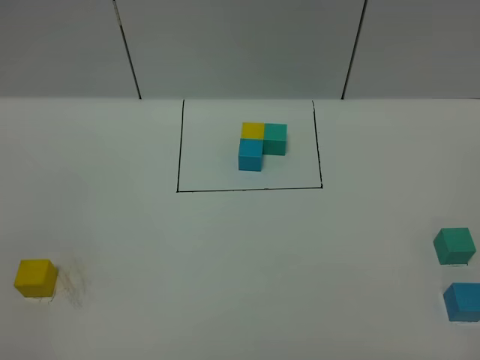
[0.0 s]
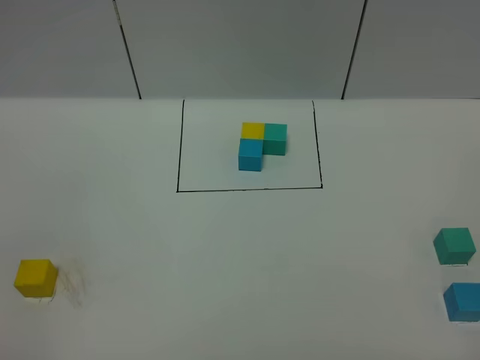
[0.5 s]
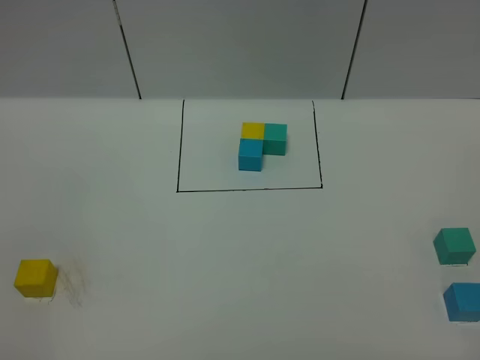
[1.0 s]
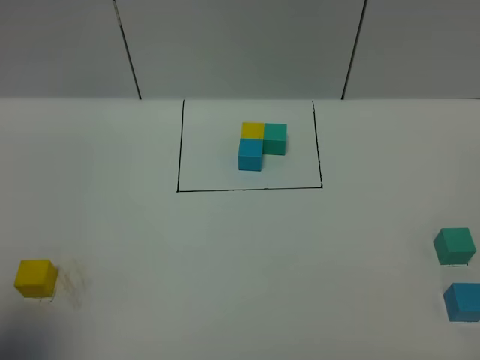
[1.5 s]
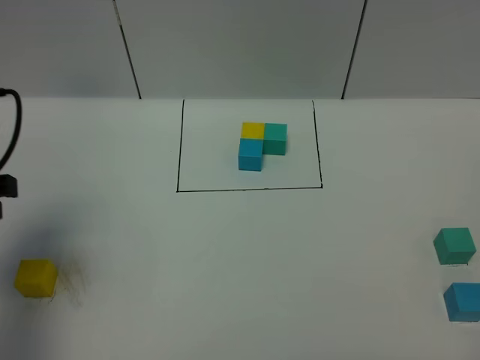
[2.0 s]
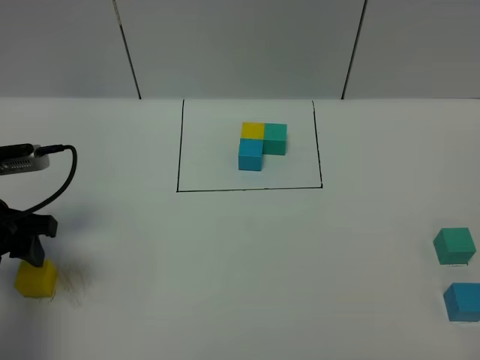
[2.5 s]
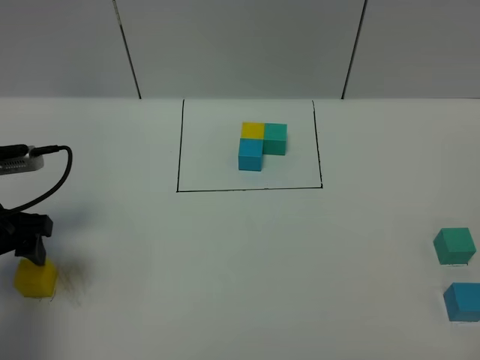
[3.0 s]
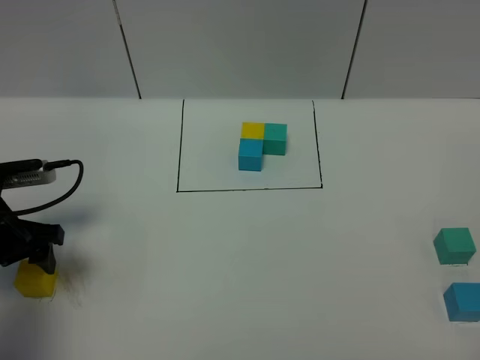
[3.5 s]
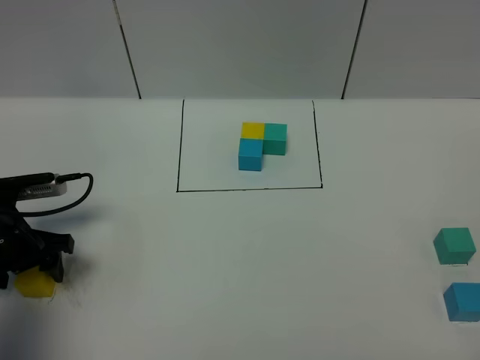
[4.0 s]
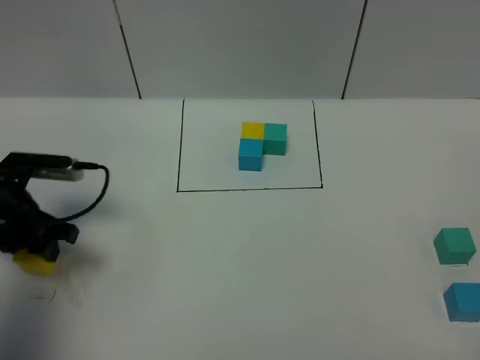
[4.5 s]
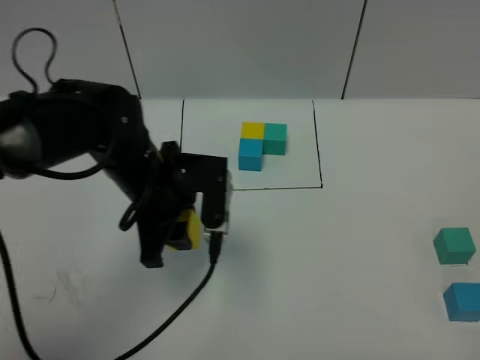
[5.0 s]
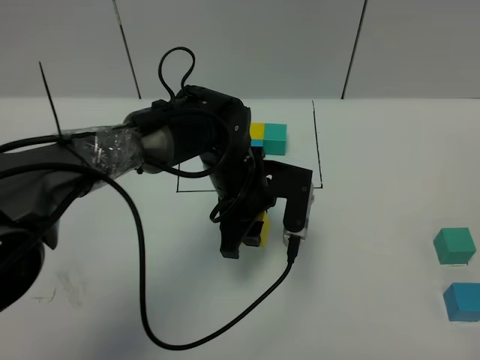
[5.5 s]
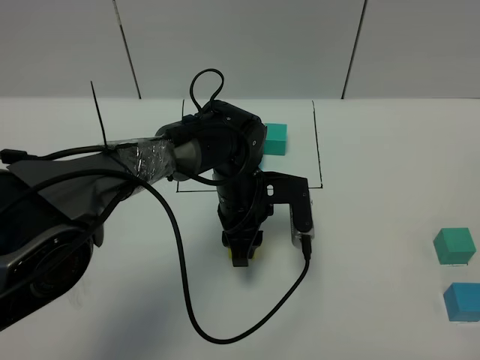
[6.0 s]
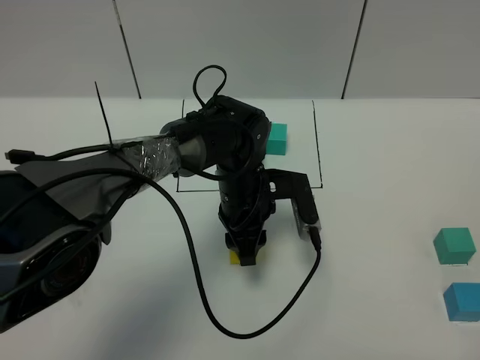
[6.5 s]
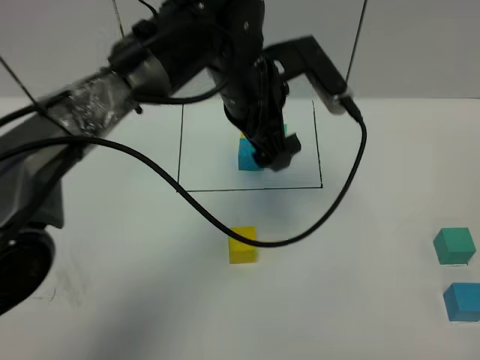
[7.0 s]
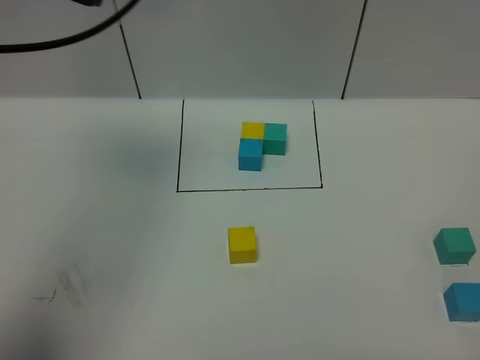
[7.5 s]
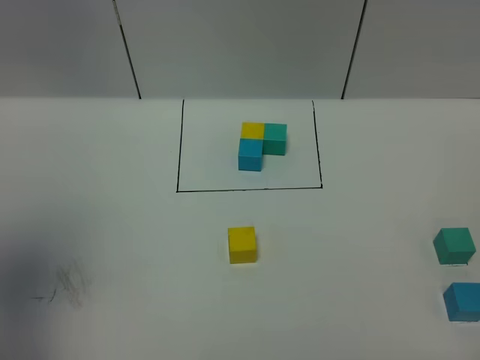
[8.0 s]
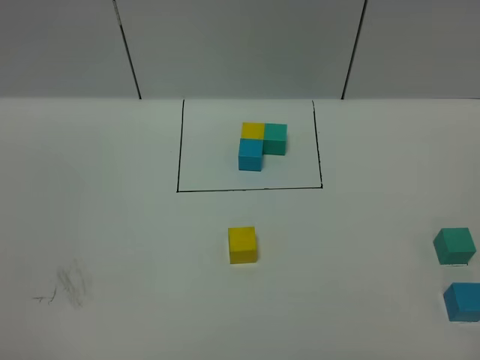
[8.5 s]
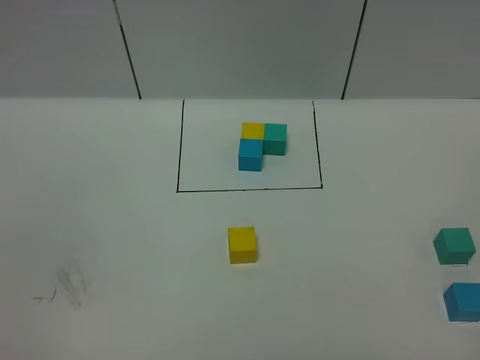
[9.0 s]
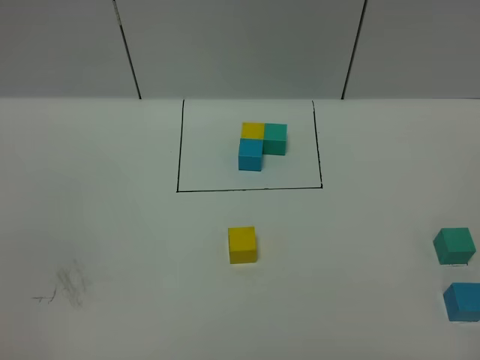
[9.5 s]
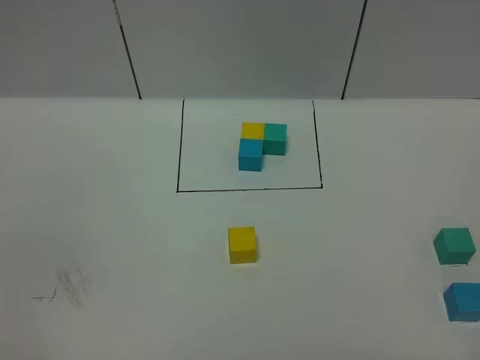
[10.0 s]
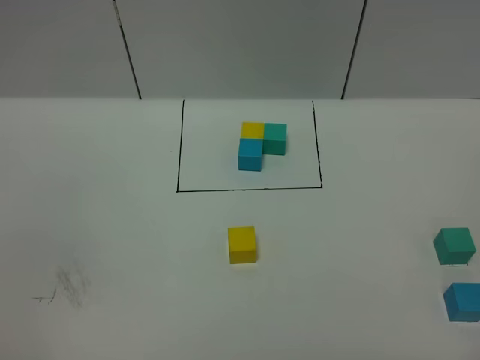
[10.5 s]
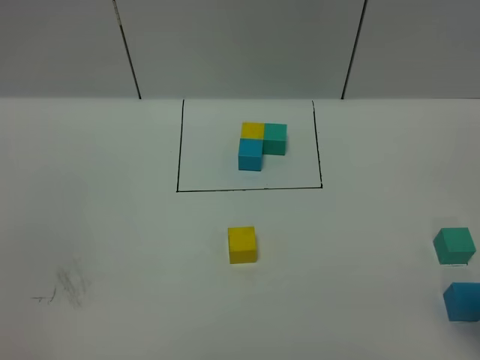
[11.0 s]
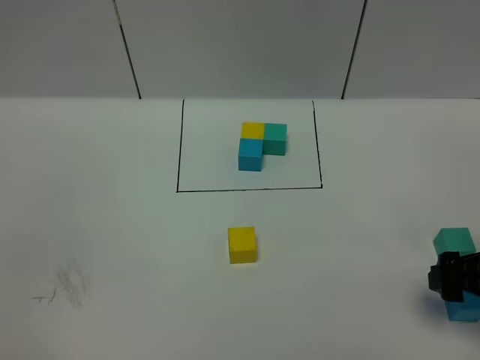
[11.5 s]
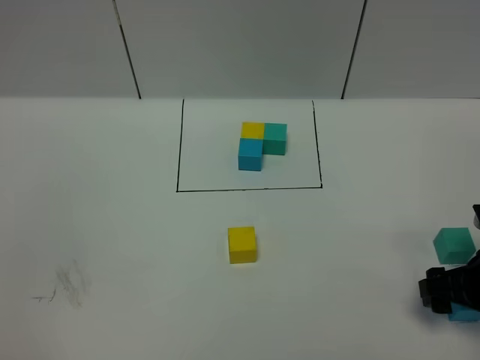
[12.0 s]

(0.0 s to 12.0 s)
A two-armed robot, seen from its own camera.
Task of the whole recording: According to the building block template in front, assemble the scattered blocks together.
Step, 2.0 s - 6.5 s: Put the yellow cube in the center of the table.
0.0 s - 2.0 s: The left gripper moves forward, approximately 25 cm.
2.0 s - 4.0 s: The left gripper is displaced downward by approximately 15 cm, and opens its fingers.
4.0 s - 6.0 s: The left gripper goes approximately 30 cm to the right, and closes.
6.0 s - 8.0 s: The left gripper shifts roughly 50 cm upward, to the left and backward, and opens.
8.0 s - 10.0 s: The left gripper shifts about 25 cm backward and downward.
10.0 s - 12.0 s: The right gripper travels forward and downward by approximately 25 cm.

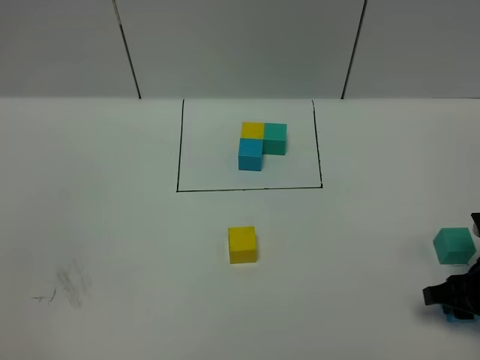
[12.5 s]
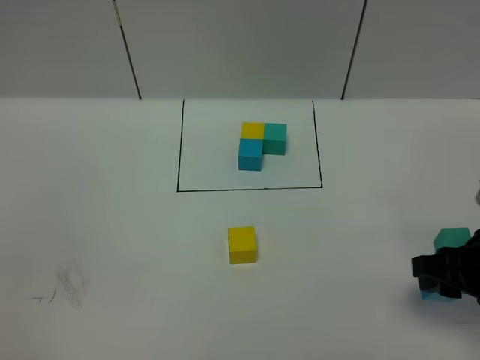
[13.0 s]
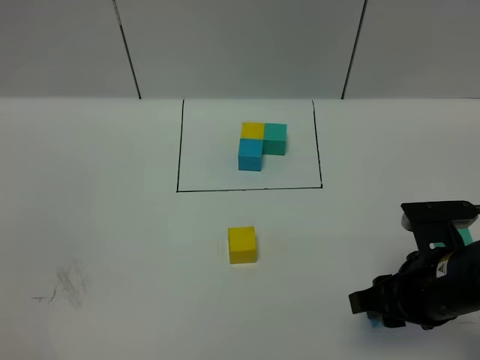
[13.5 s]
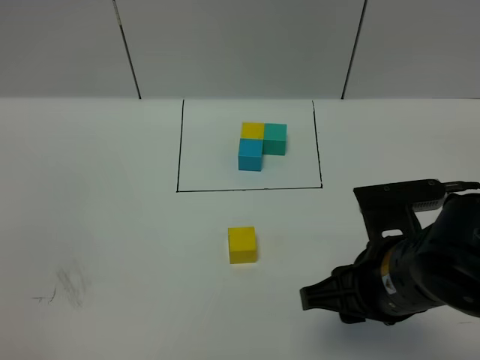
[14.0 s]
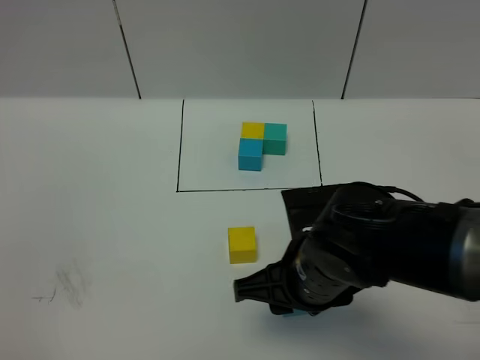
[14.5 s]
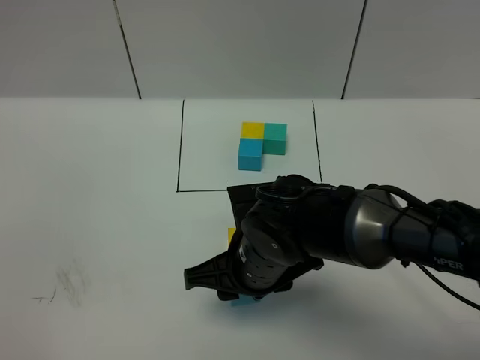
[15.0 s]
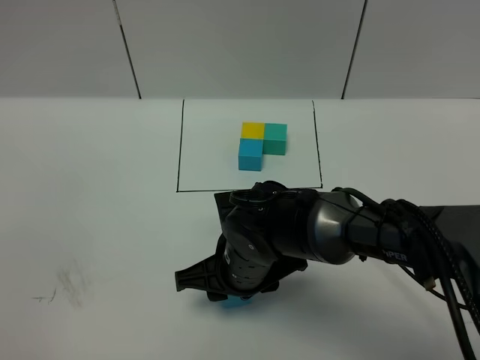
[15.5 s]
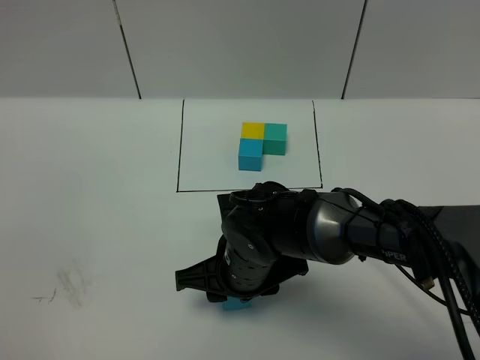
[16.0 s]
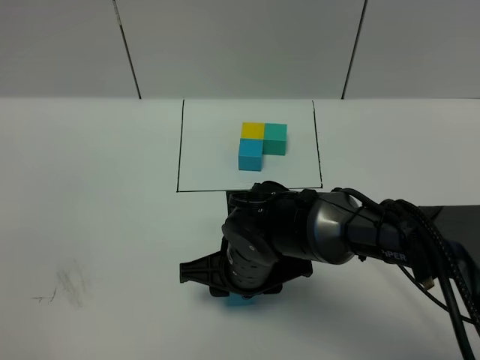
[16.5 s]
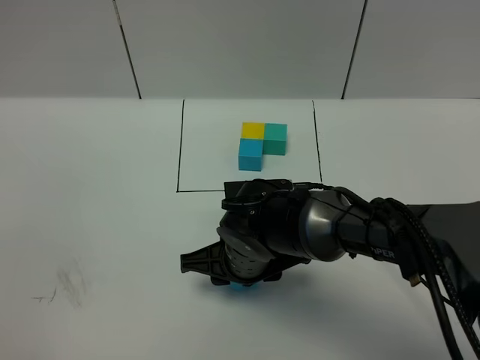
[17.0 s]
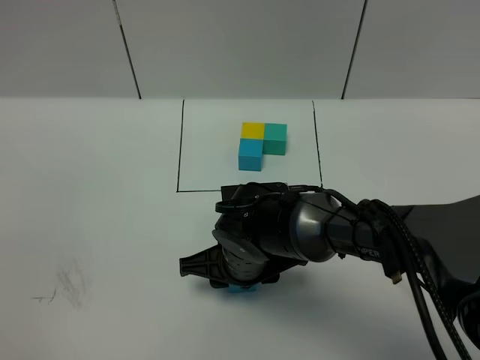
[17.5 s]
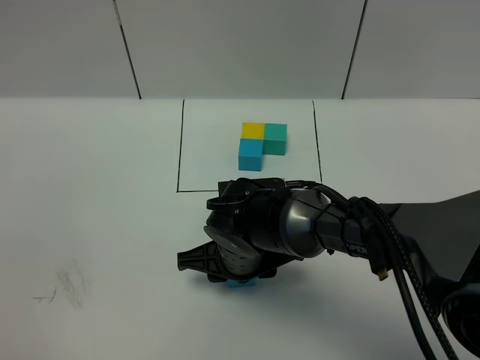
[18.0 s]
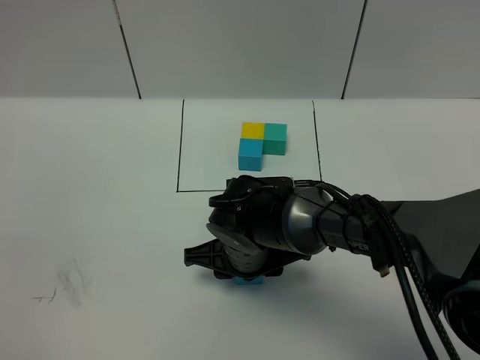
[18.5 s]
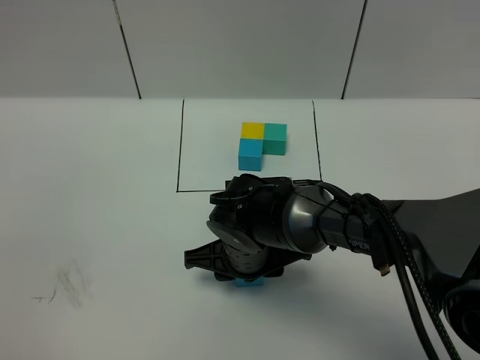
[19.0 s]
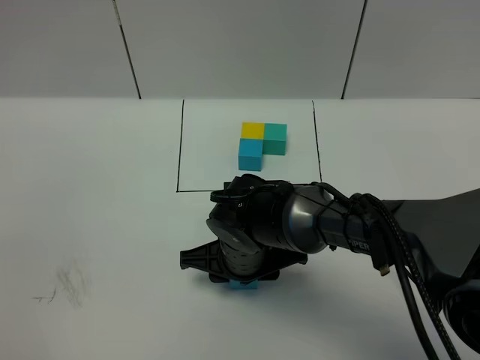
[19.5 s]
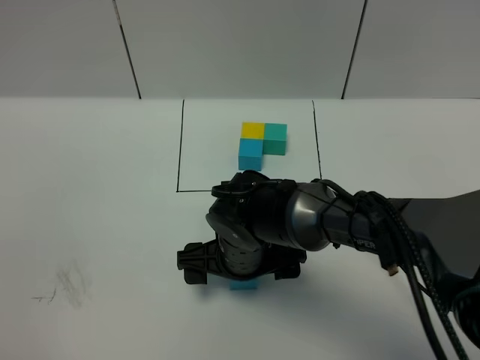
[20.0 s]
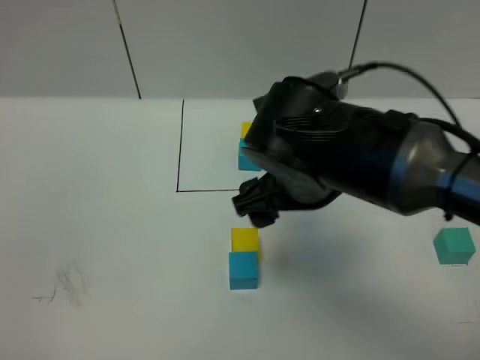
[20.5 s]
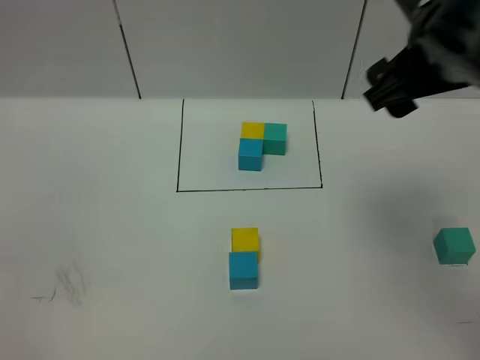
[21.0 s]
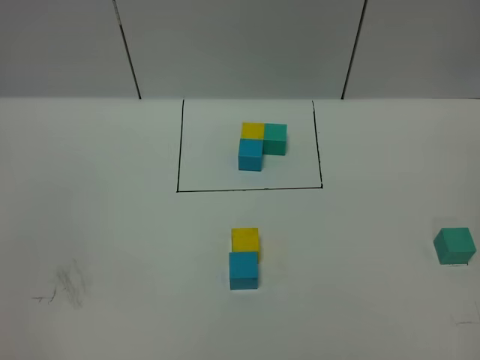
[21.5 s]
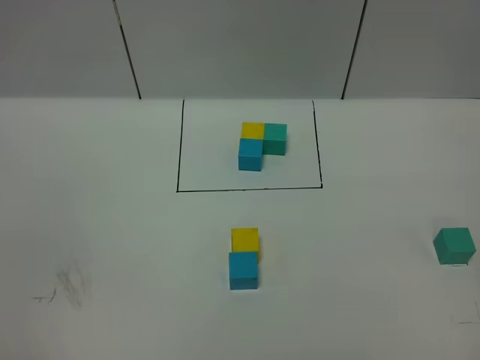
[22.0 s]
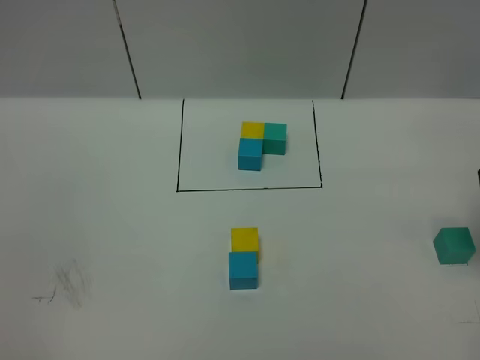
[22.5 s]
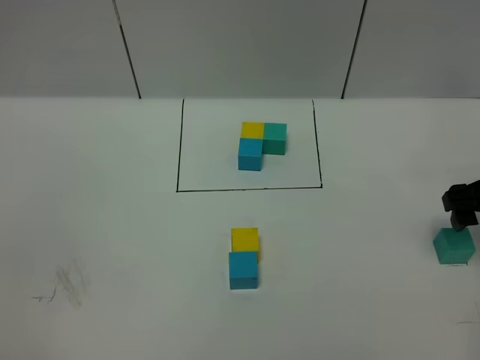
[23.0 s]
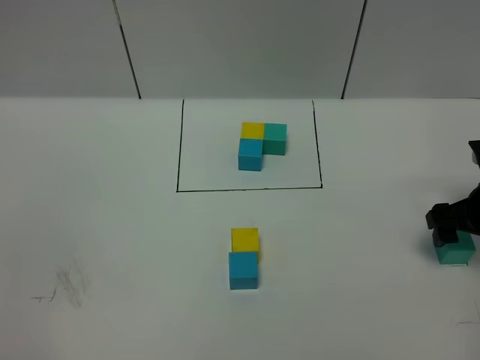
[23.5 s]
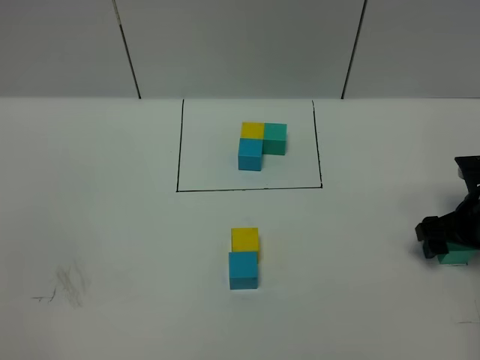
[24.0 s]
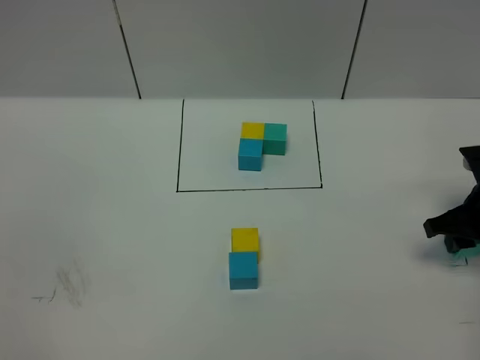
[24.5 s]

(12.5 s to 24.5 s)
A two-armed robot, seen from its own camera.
Task of the whole recording: According to the building block template in front, assemble the scattered blocks together.
Step, 12.5 s - 20.0 s: Put the blue cube in the front of the yellow cube.
12.5 s - 14.5 s: The right gripper moves to the left, about 25 cm.
14.5 s - 16.5 s: The right gripper shifts about 10 cm downward and to the left.
16.5 s - 18.5 s: The grippers make only small movements.
18.5 s - 20.5 s: The right gripper shifts roughly 15 cm upward, and opens up.
20.5 s - 22.5 s: The right gripper shifts roughly 25 cm to the right.
22.5 s - 24.5 s: The right gripper heads downward, covering some 10 cm, and closes up.

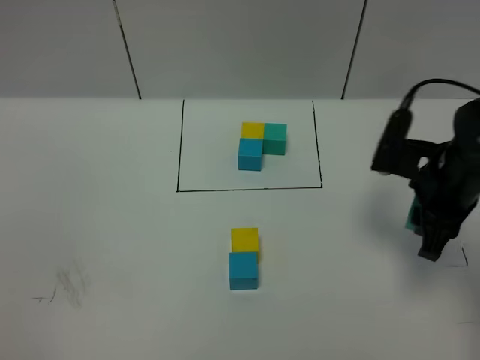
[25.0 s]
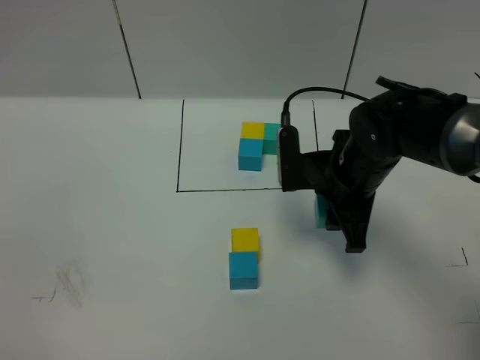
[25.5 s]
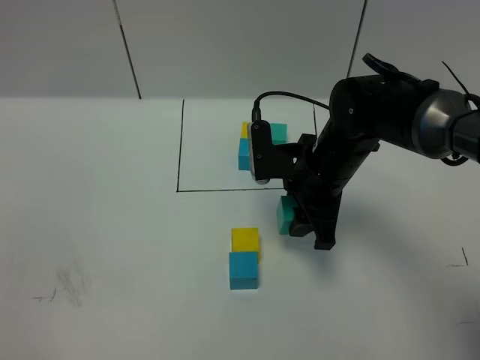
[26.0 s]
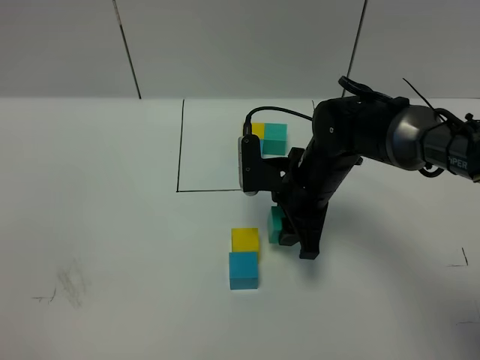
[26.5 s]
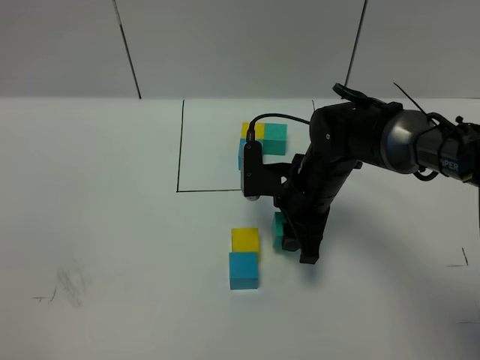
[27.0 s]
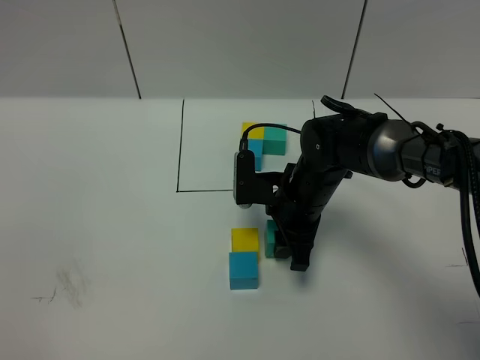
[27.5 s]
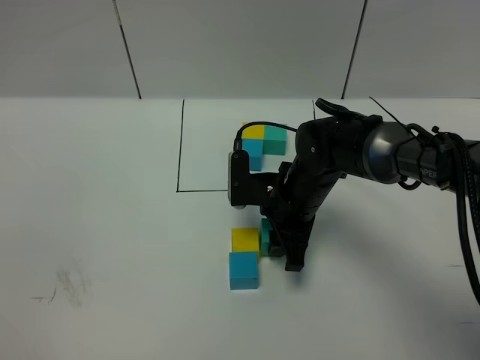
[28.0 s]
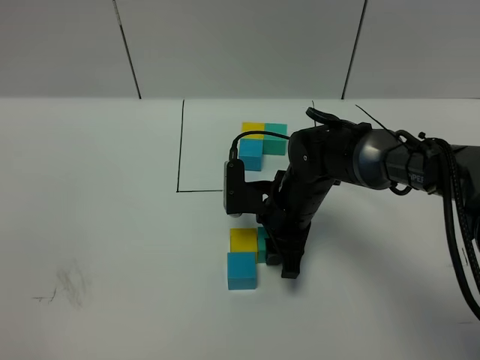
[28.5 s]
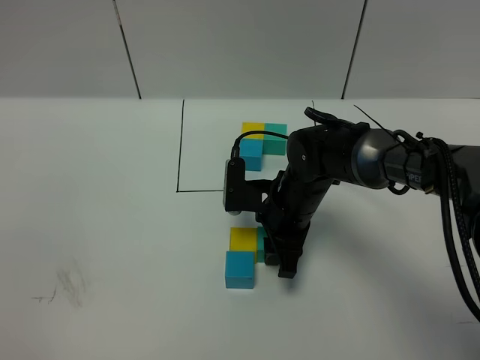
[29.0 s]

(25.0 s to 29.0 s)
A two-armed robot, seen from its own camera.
Task of the whole recording: According to the building block template in front, assemble the scattered blocks together.
25.0 s - 27.0 s: The right gripper goes some 15 cm to the left and downward.
27.0 s - 29.0 s: There are only small adjustments of the grippers.
